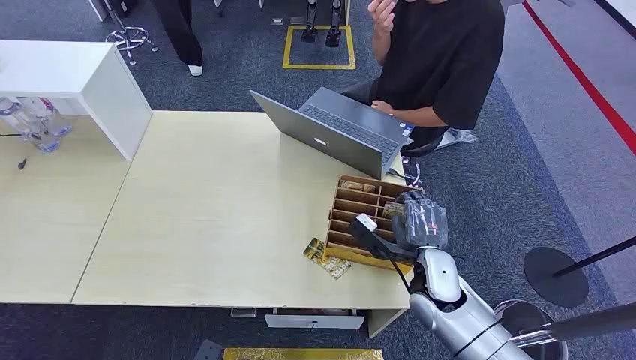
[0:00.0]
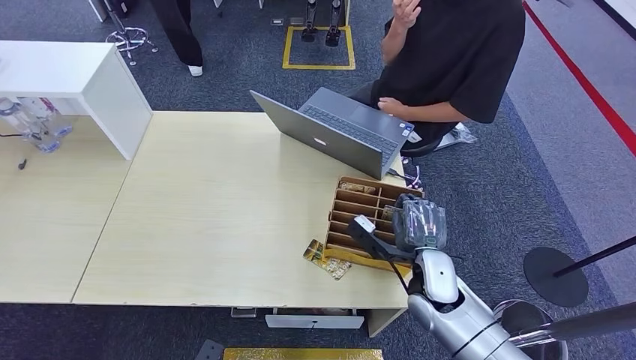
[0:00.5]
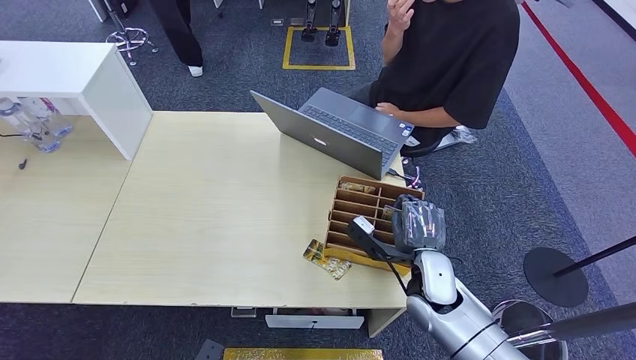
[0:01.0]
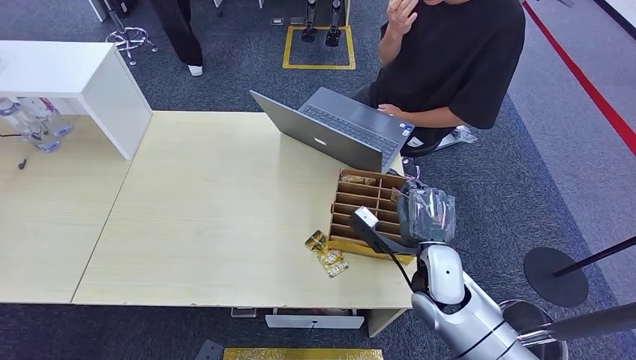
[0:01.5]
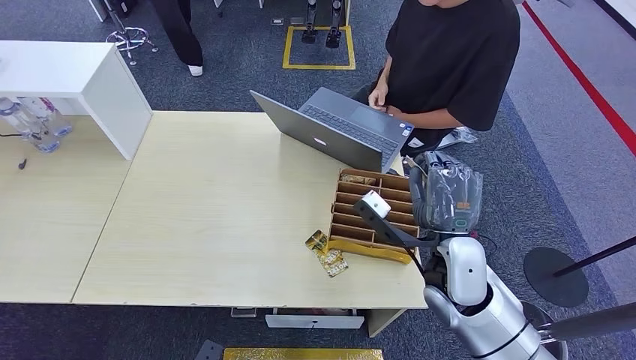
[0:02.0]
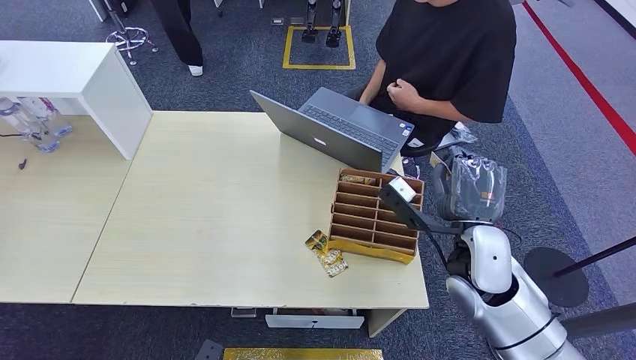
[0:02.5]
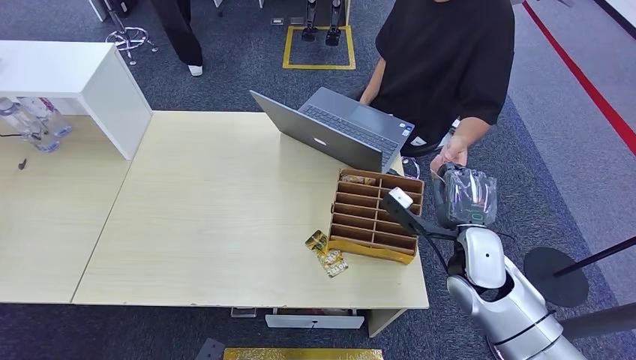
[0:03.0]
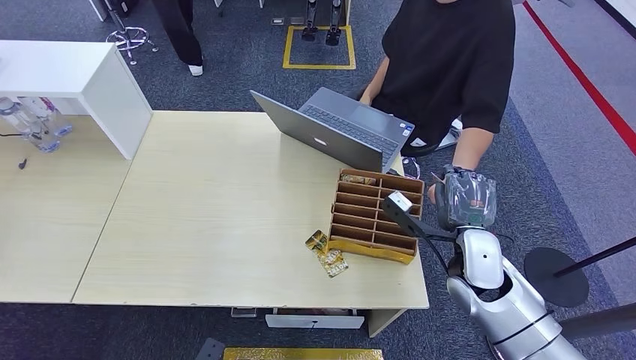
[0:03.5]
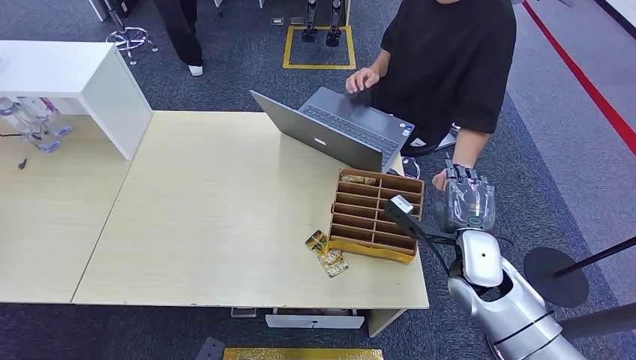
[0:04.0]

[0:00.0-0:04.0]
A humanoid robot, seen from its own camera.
Step, 0:00.0 to 0:02.5: Pick up the key card from the card box.
Step, 0:03.0 to 0:04.0: Hand the key card to the target.
0:02.0 to 0:04.0: The right hand travels to the right by roughly 5 cm.
